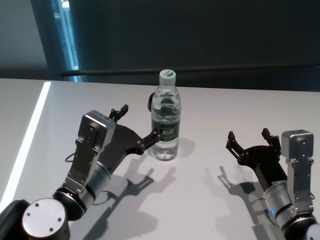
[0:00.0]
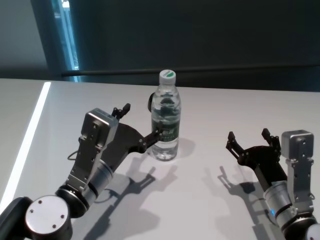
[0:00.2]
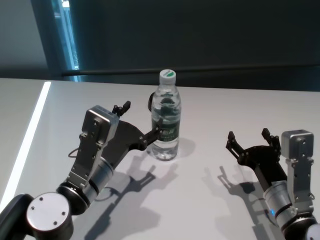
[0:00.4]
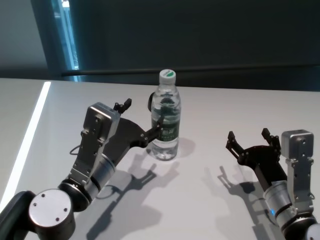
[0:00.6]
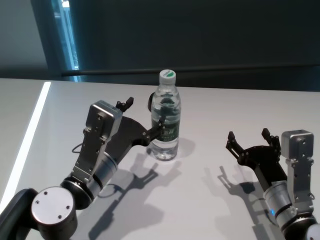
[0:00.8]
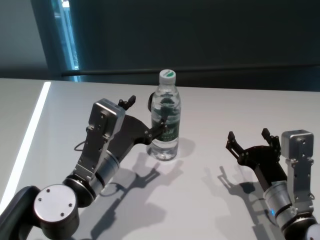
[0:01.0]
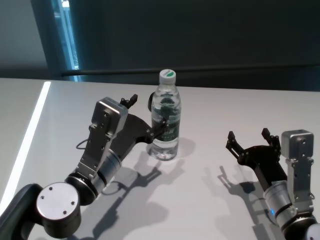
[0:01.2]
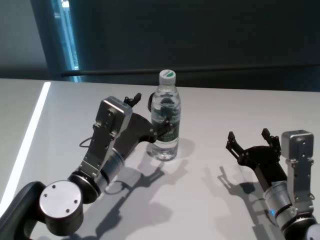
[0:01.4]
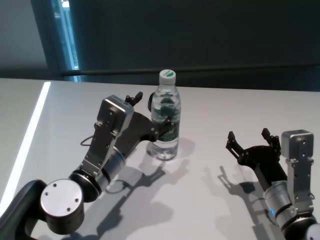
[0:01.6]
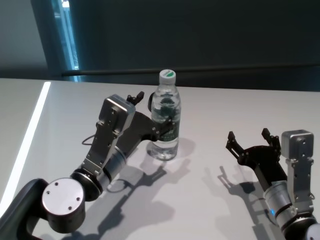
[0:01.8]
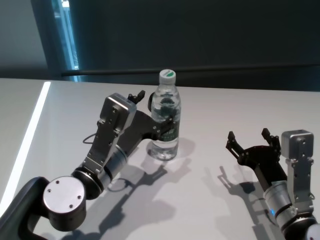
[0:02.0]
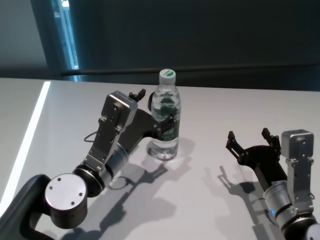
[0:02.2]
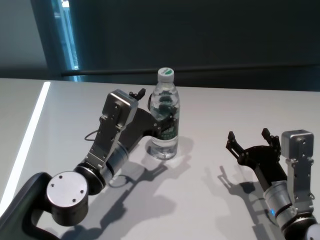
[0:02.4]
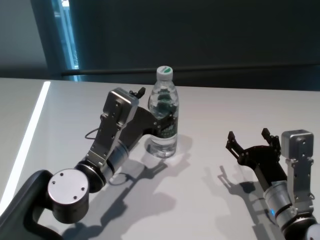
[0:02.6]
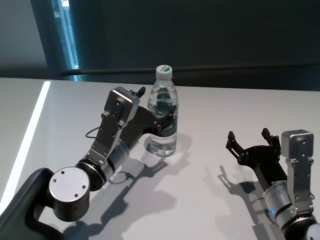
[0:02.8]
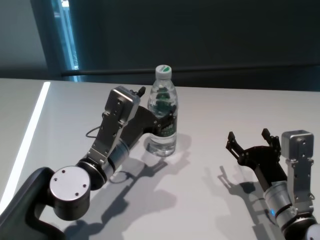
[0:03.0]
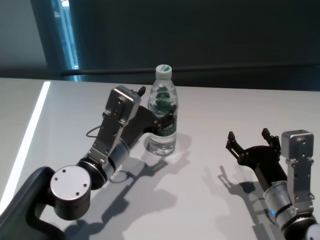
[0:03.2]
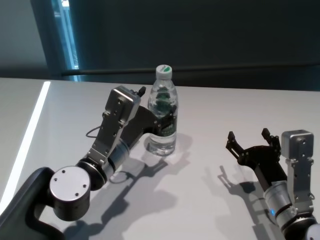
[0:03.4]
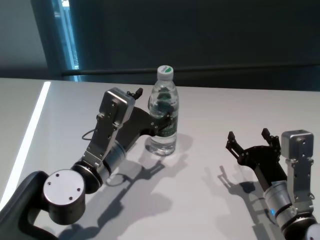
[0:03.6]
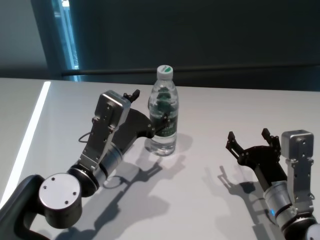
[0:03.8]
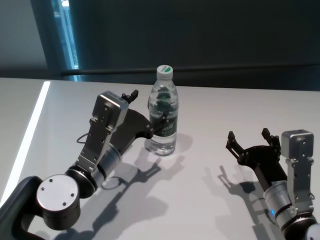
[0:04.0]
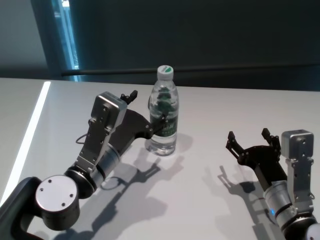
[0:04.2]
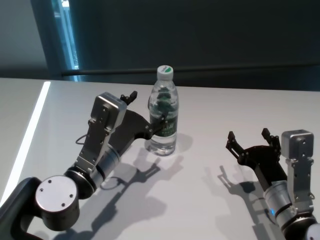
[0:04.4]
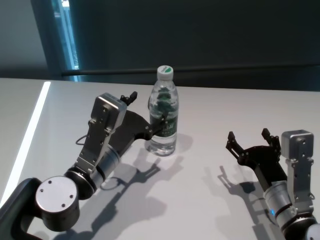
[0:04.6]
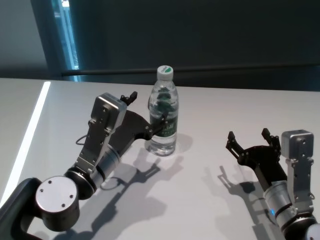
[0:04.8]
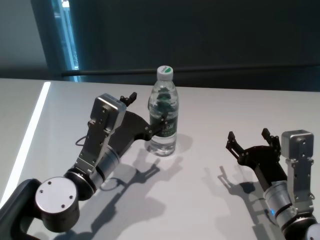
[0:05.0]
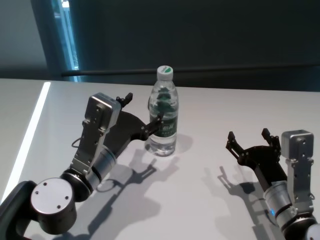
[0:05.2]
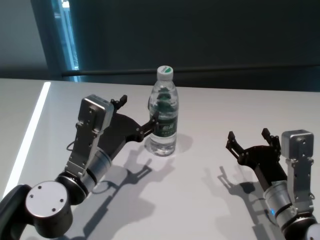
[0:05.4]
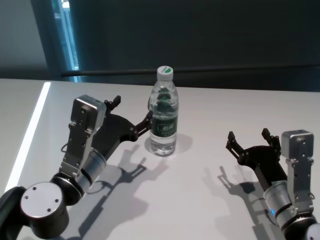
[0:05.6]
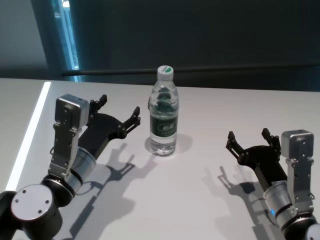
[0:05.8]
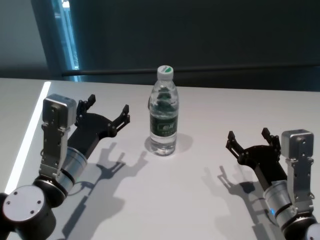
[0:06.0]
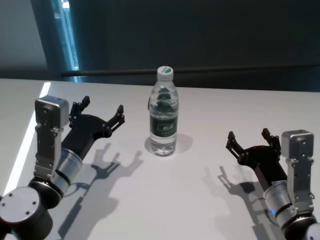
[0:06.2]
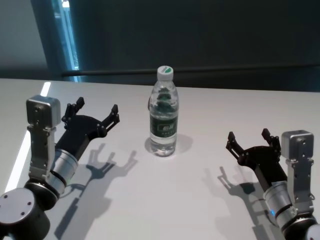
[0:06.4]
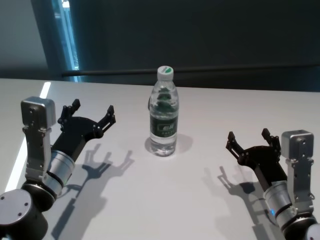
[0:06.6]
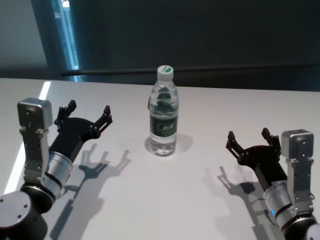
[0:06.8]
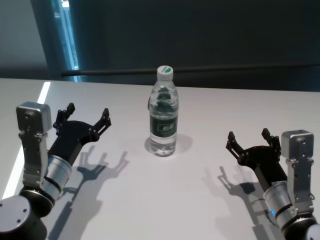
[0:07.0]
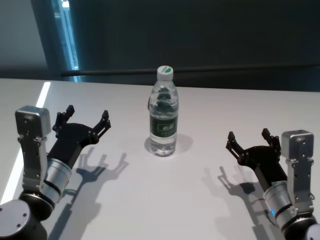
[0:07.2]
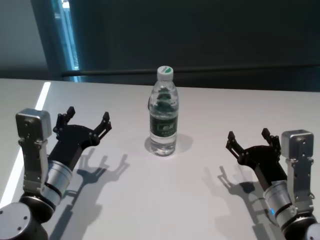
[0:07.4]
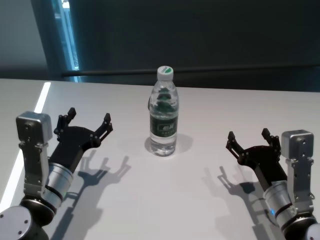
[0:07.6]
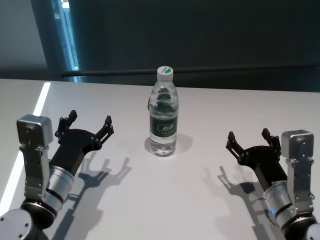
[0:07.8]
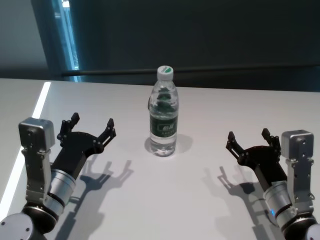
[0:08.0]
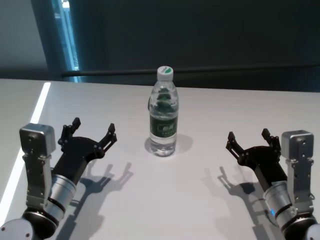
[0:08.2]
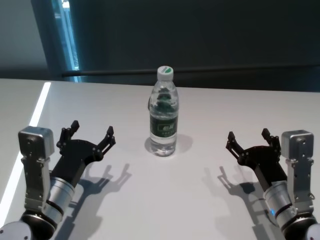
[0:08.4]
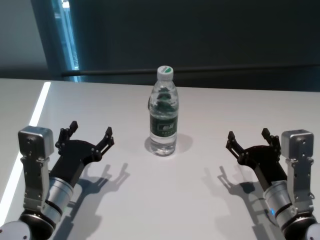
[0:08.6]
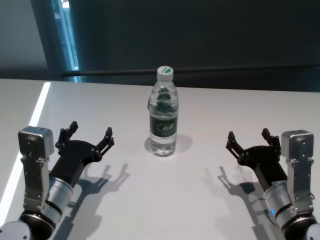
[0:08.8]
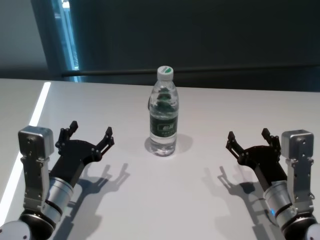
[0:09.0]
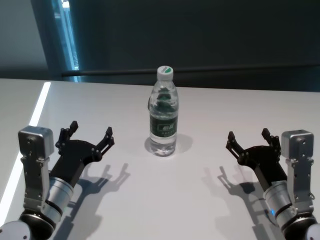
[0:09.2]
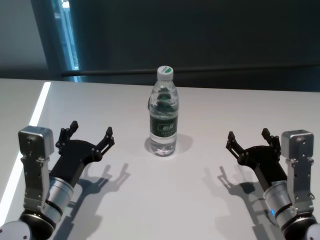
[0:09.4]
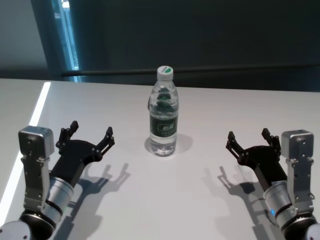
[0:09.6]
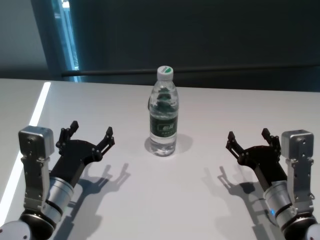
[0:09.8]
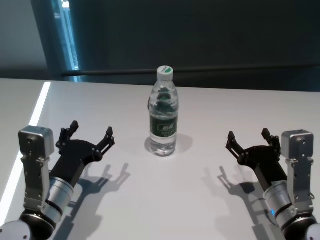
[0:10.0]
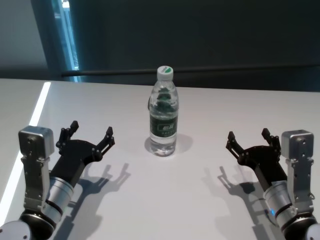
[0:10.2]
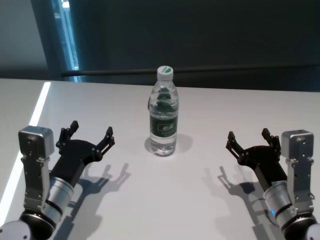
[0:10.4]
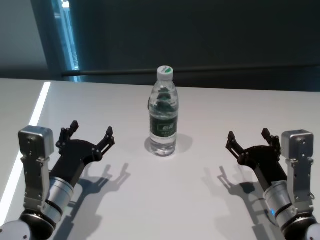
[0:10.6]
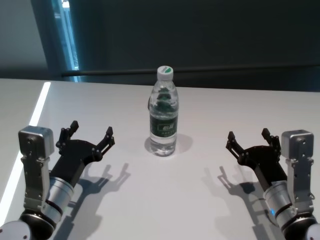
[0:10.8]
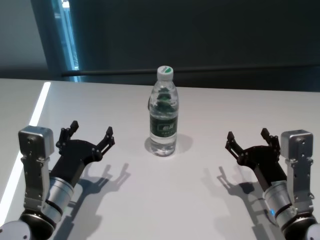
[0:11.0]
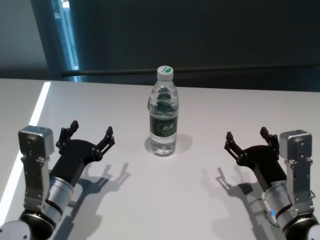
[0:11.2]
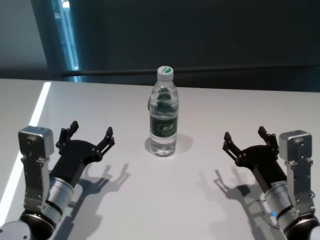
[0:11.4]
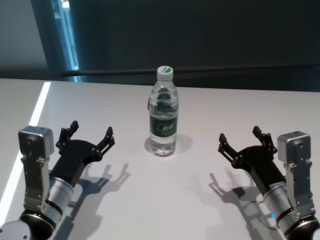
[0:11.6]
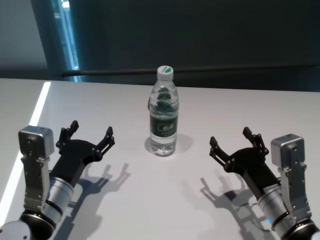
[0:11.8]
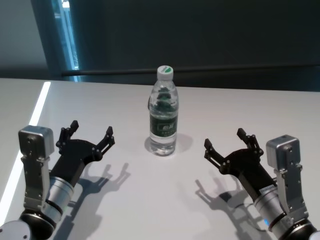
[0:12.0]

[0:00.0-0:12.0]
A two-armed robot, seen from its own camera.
Task of the whole recording: return to a safe position after touching an obstacle with your arm on the white table.
Step, 0:00.0 to 0:05.6: Touch the bottle with left gripper.

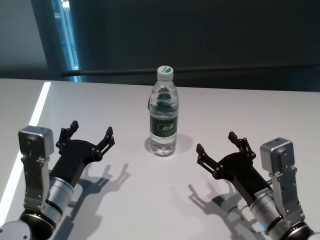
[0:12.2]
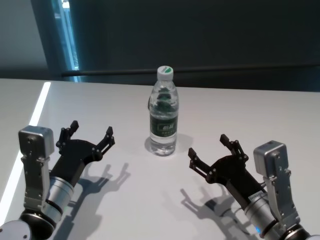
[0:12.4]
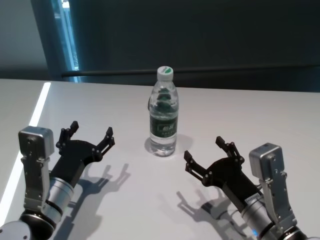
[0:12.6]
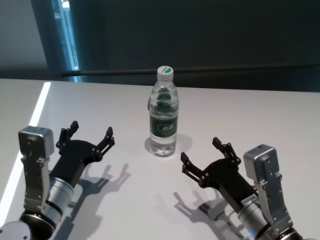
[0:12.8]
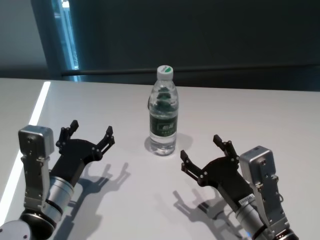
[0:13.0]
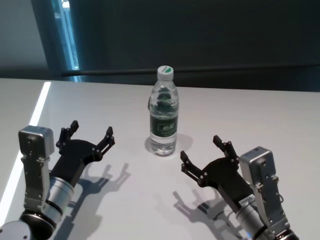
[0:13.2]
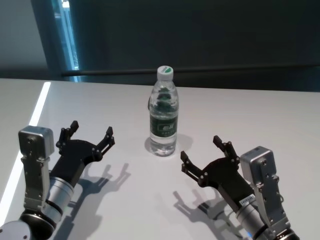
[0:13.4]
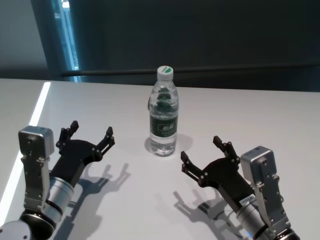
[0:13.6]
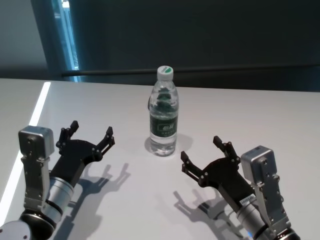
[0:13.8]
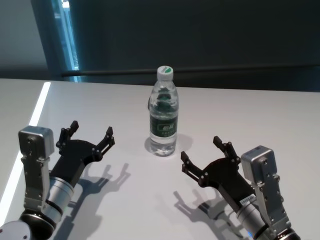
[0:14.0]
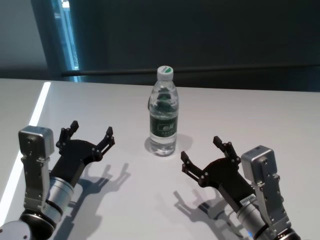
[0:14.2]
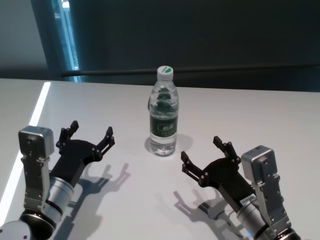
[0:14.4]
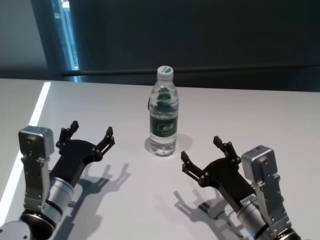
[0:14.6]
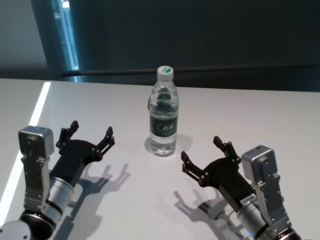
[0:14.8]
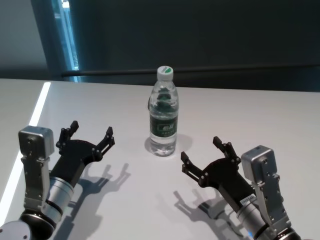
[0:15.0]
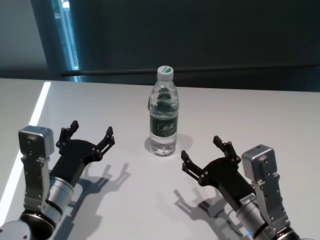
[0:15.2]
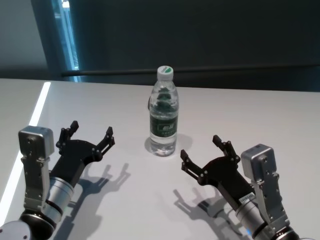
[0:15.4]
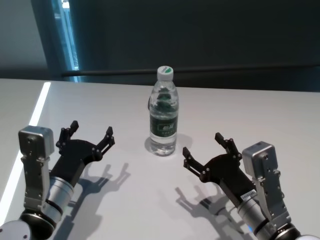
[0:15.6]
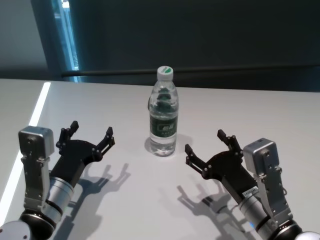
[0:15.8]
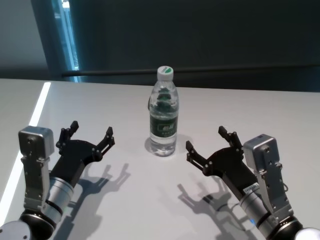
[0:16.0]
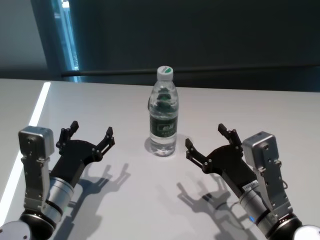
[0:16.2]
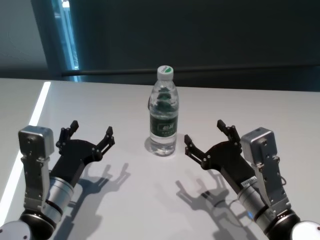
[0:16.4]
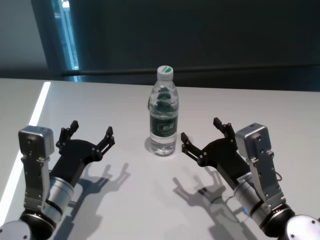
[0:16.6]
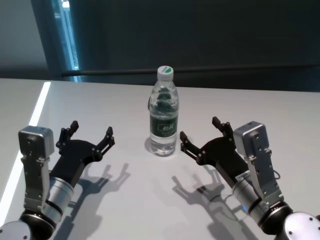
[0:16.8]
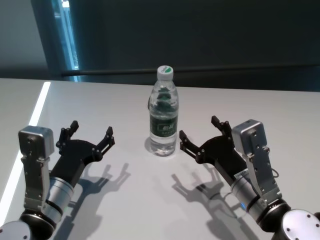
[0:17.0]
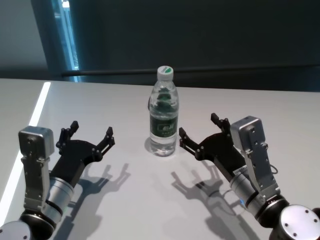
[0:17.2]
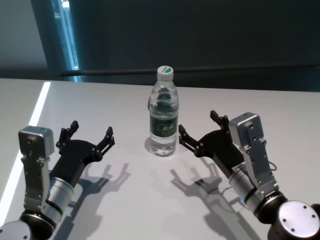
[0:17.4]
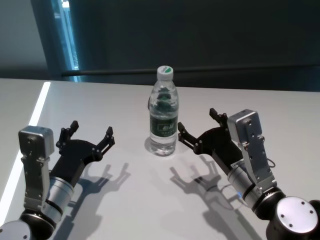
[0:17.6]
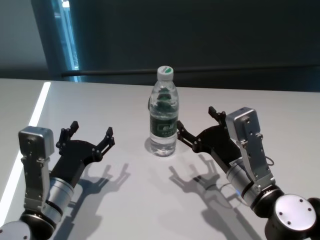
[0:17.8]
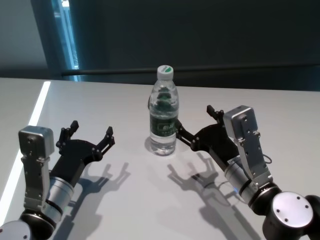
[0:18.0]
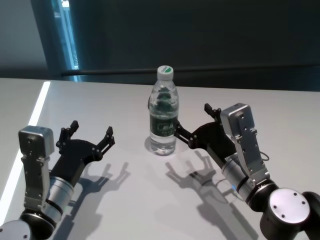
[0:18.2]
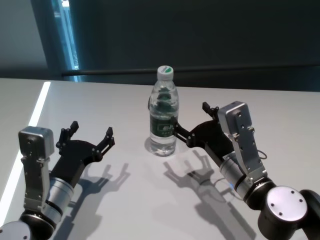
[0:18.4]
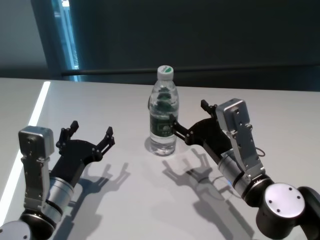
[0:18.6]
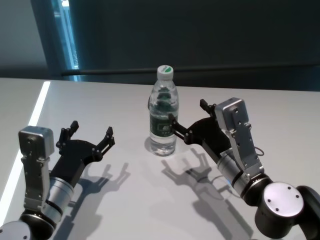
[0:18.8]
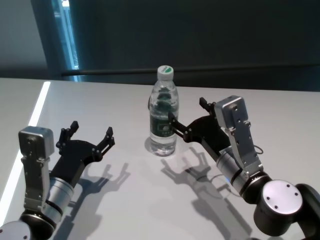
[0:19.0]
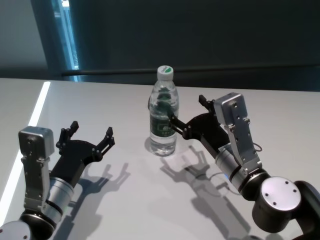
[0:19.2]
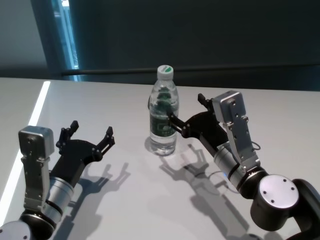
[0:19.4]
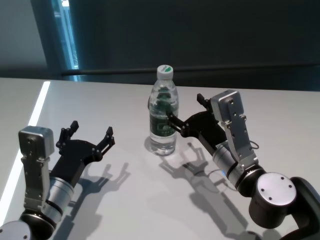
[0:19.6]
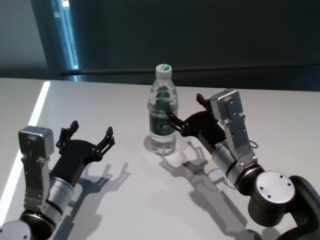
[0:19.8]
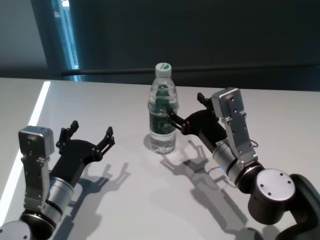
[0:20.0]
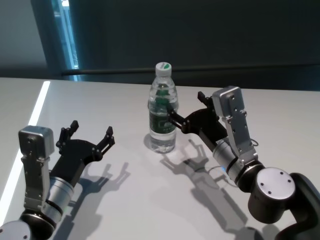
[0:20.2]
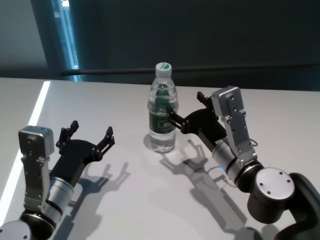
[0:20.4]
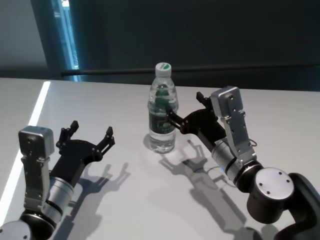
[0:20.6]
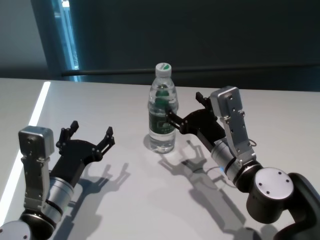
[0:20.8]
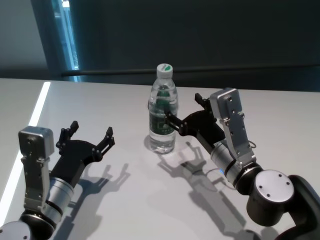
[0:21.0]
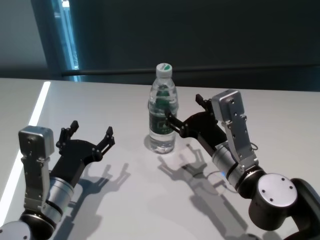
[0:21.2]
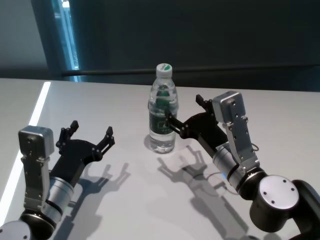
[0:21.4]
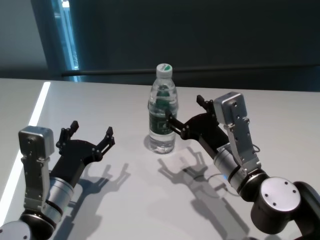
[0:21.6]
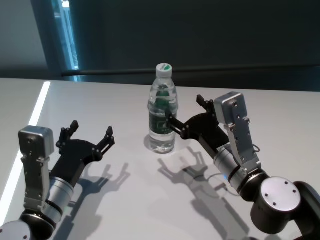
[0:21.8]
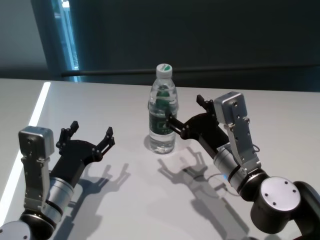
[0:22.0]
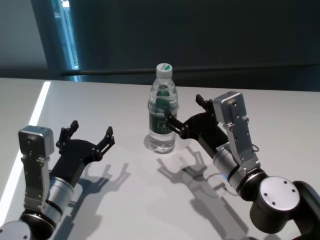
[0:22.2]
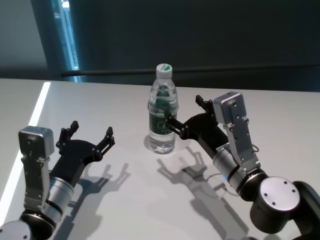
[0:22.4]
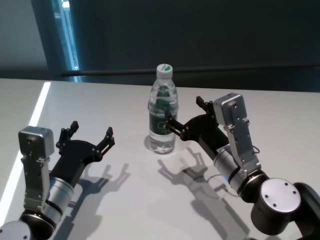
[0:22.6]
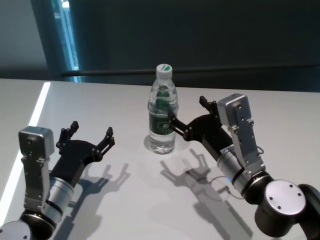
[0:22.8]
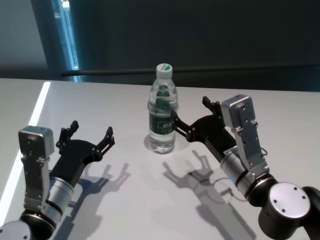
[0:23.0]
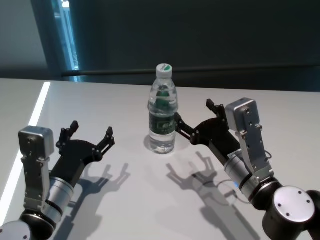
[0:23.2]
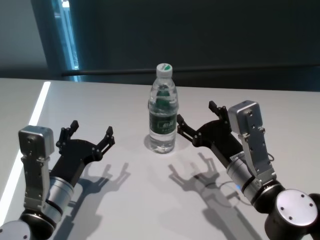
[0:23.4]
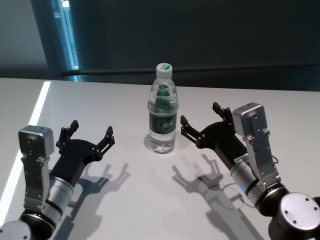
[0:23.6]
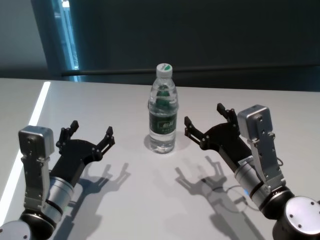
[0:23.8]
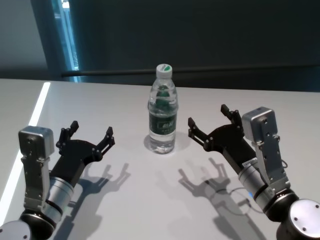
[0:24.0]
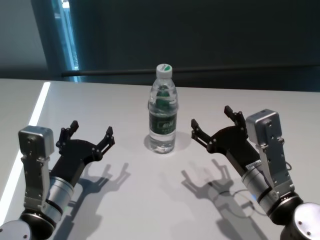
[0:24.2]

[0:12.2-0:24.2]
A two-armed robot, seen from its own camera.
Task of the whole recording: return to a safe position after touching an obstacle with your arm on the white table.
Step, 0:12.2 to 0:23.6: Touch the bottle with right gripper.
